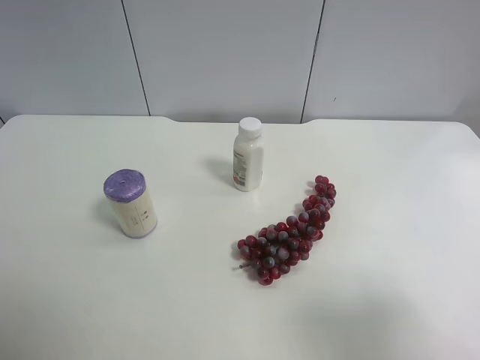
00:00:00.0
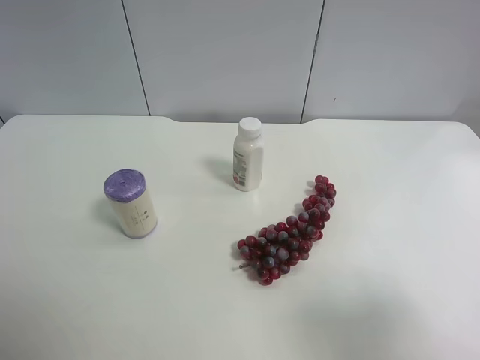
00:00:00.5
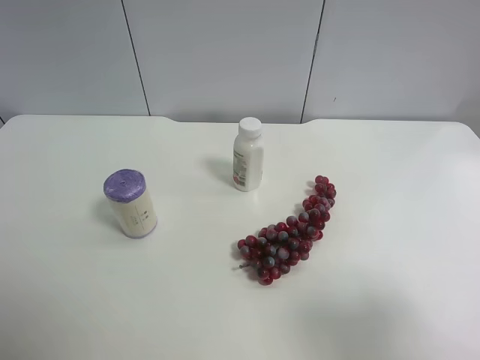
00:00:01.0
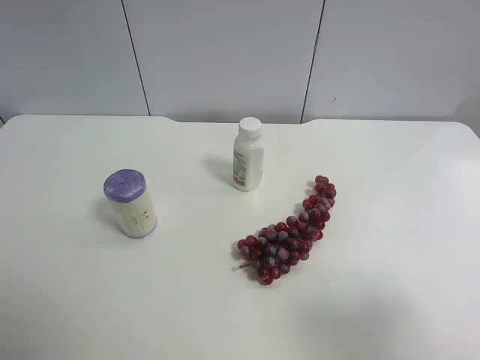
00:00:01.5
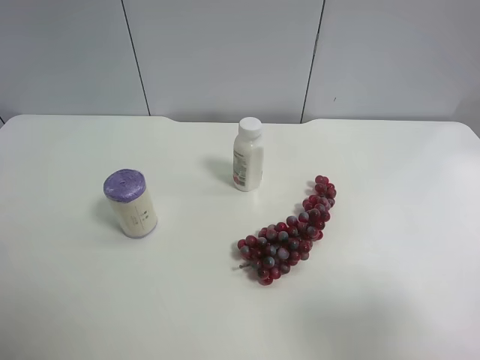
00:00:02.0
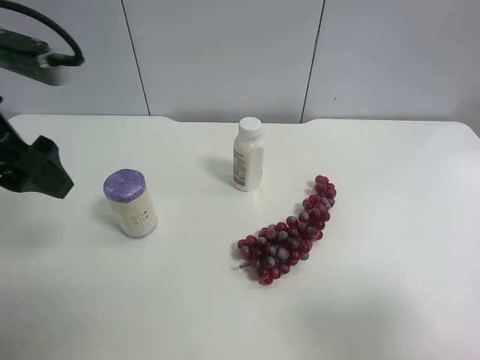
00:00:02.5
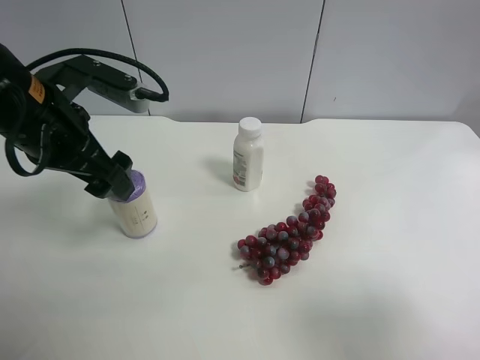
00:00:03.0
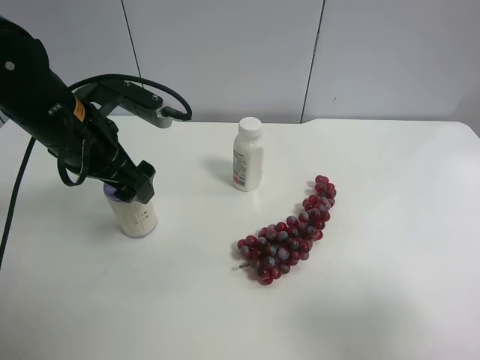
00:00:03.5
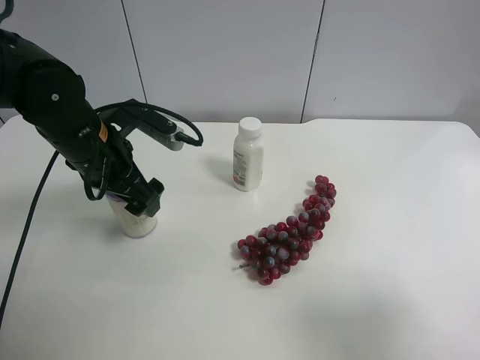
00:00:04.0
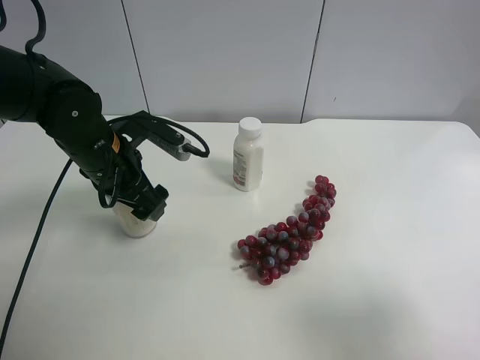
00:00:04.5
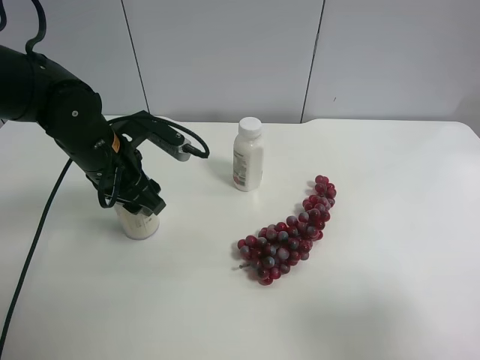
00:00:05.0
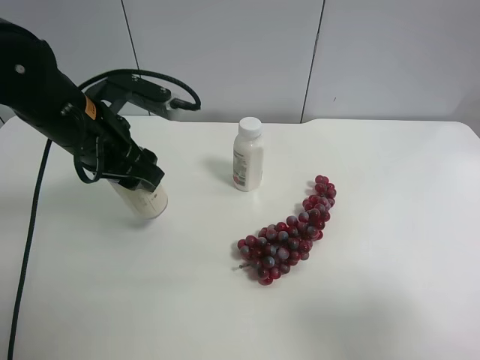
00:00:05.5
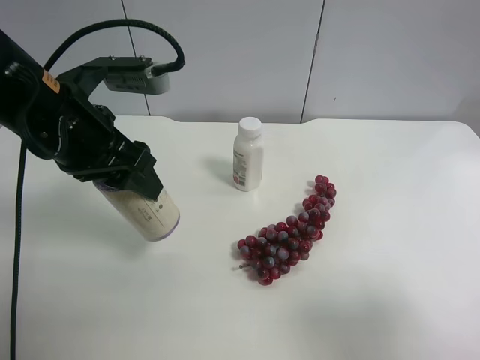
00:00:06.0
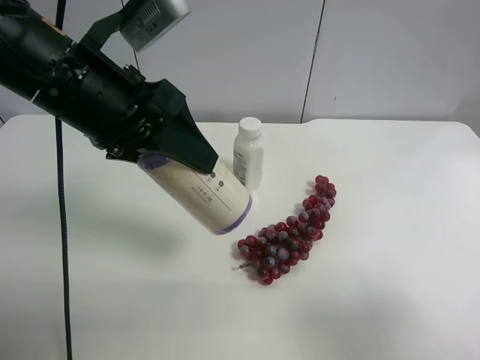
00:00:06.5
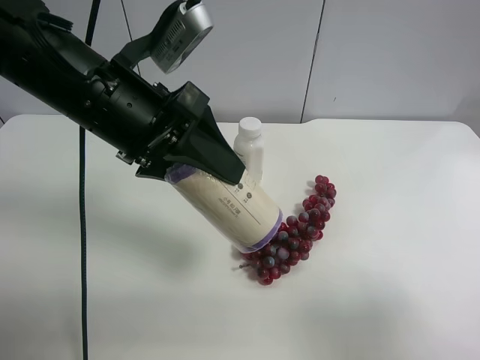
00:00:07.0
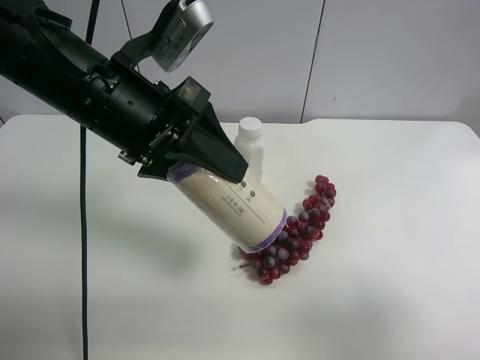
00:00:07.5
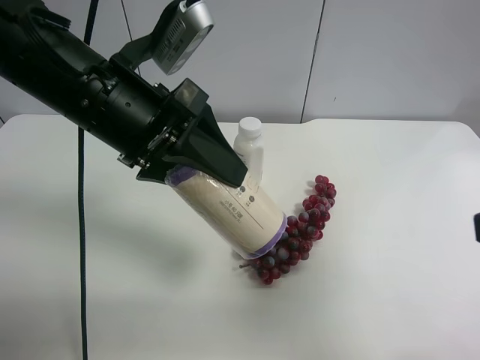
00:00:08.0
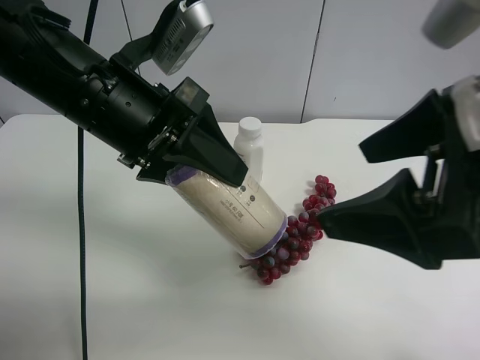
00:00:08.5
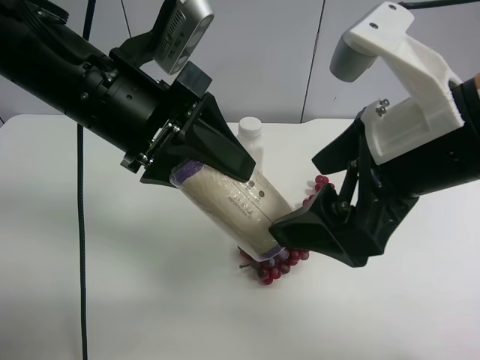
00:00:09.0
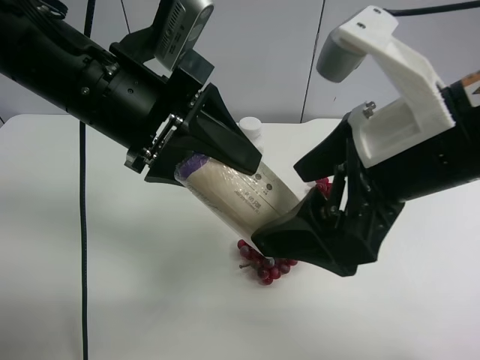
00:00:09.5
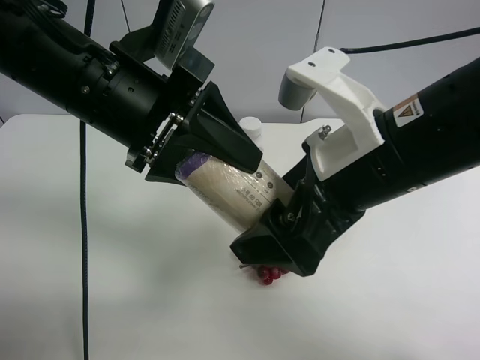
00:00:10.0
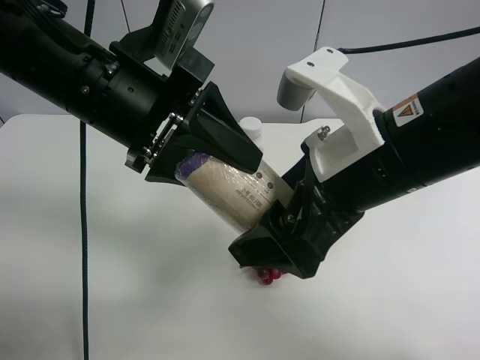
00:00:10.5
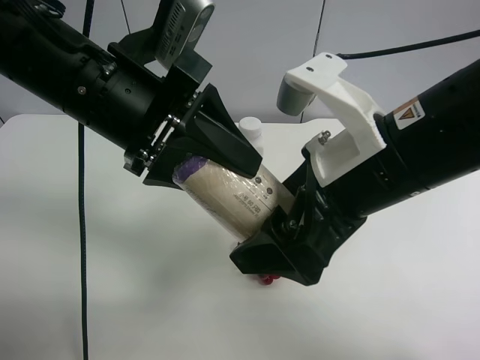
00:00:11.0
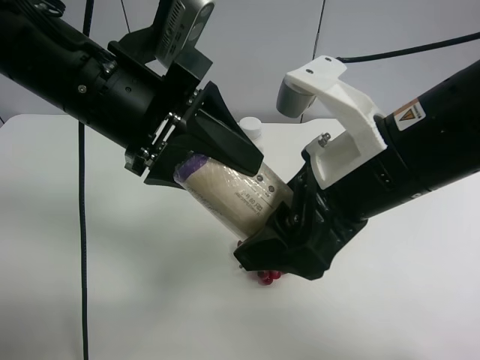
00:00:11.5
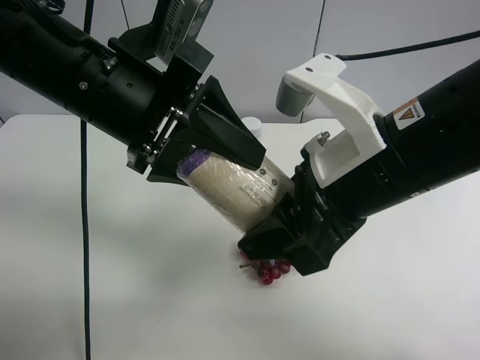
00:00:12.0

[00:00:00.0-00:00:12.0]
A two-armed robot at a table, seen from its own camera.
Task of the whole recording: use the left gripper to pick up the item and transfer it from the left gripper to the right gripper.
00:00:02.0 to 00:00:04.0: The left gripper goes roughly 25 cm forward, downward and to the right.
00:00:04.0 to 00:00:06.0: The left gripper travels upward by roughly 10 cm, and closes up.
00:00:06.0 to 00:00:08.0: The right gripper heads forward, covering approximately 5 cm.
00:00:08.0 to 00:00:10.0: The right gripper goes some 20 cm to the left and forward.
00:00:10.0 to 00:00:12.0: The right gripper closes its fingers.

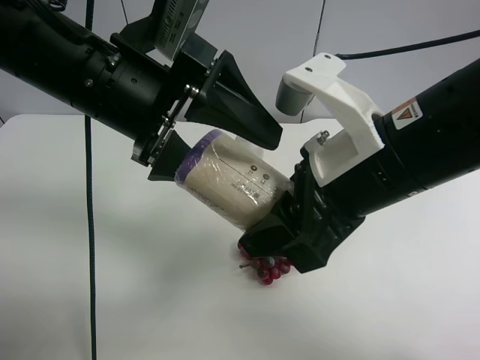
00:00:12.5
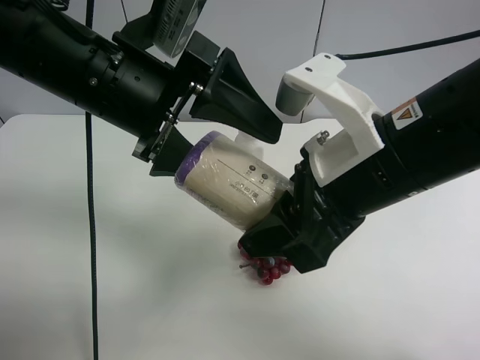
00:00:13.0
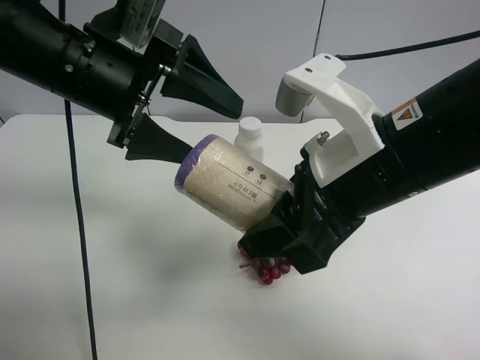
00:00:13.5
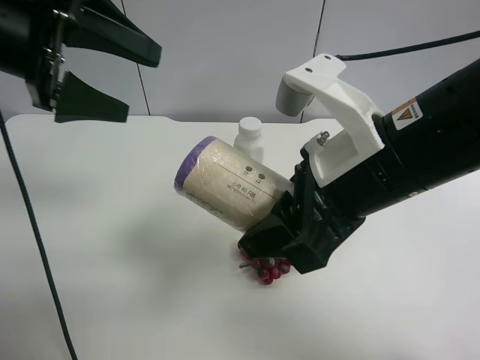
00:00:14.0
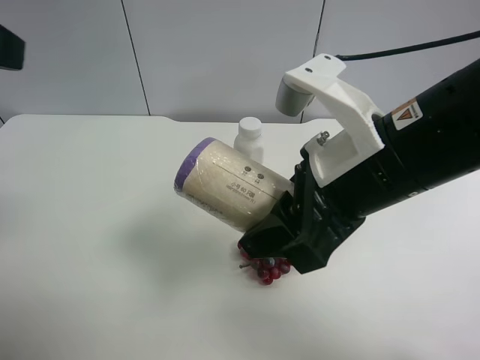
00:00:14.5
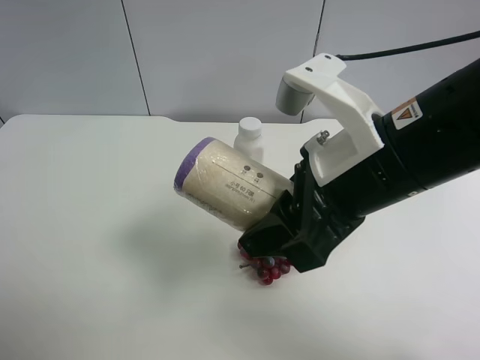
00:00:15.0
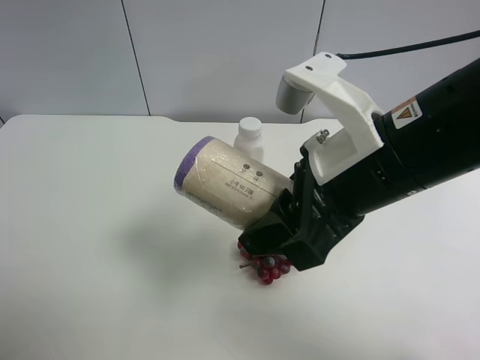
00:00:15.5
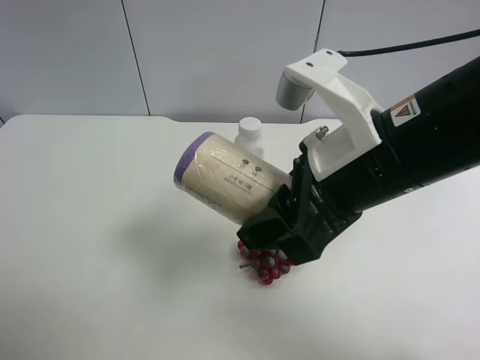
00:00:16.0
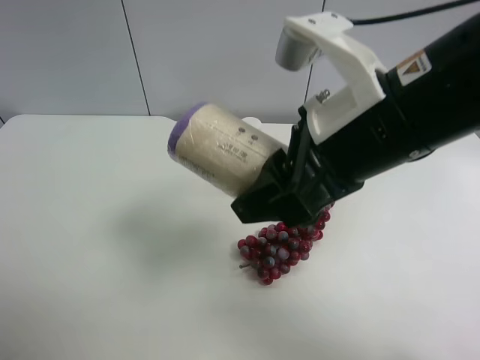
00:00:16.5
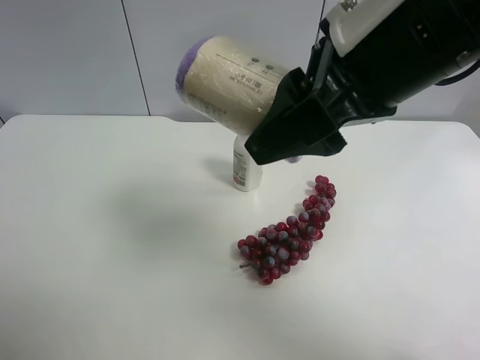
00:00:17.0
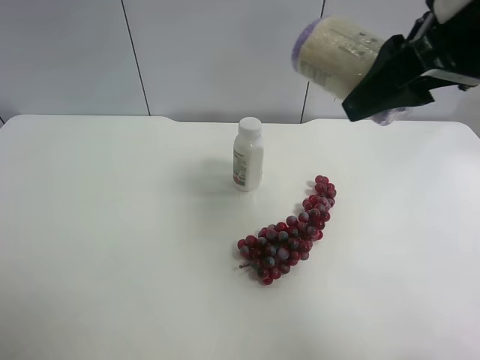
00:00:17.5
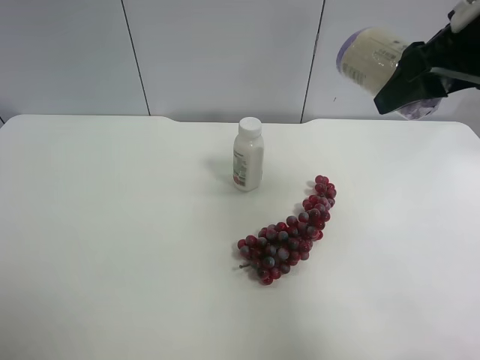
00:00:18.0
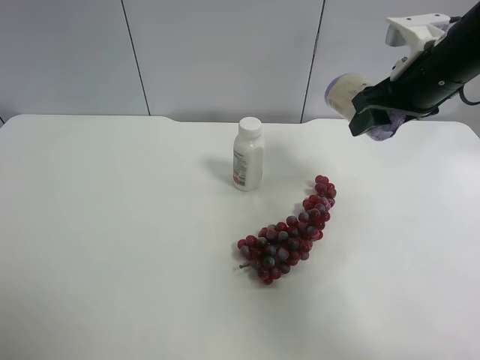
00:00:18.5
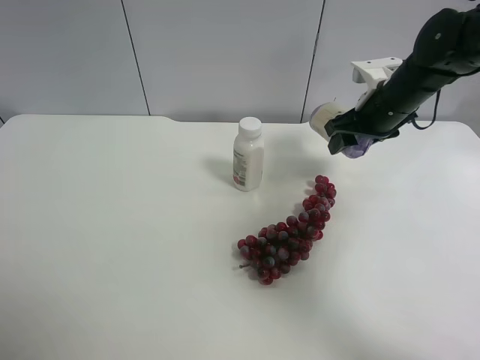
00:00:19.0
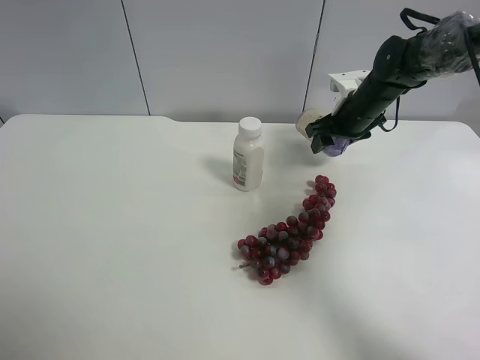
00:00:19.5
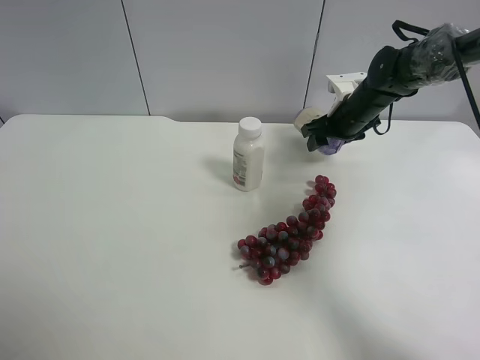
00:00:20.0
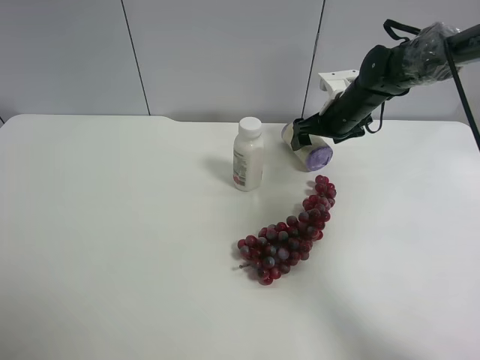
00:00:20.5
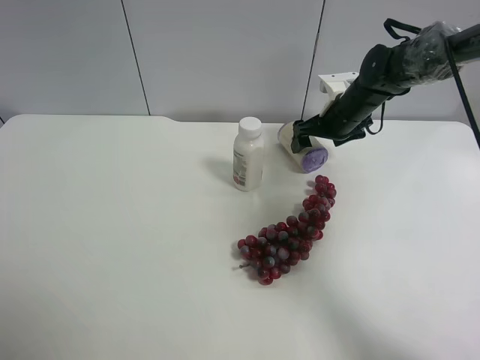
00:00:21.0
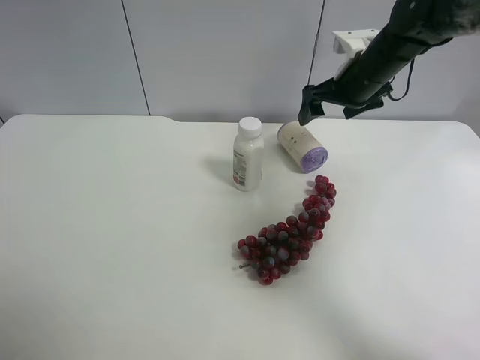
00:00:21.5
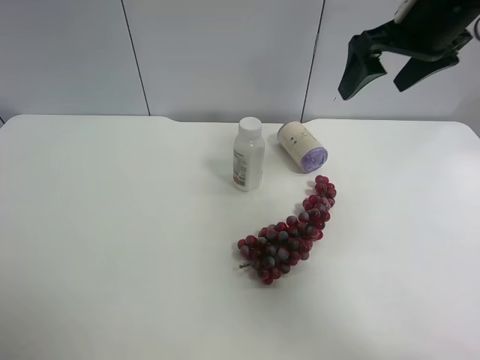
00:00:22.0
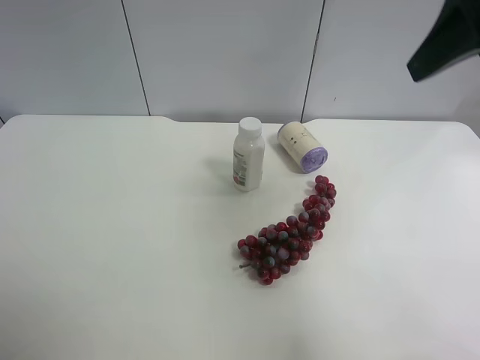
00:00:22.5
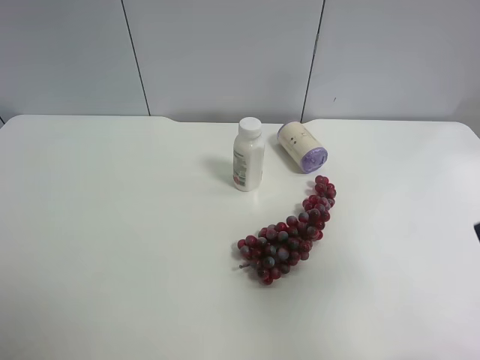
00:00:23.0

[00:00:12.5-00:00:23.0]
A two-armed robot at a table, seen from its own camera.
Task of the whole recording: use the left gripper to pick up the item and transfer it from the left gripper to the right gripper.
00:00:12.5 to 00:00:14.5: The left gripper moves to the left, upward and backward, roughly 20 cm.
00:00:14.5 to 00:00:16.5: The left gripper travels backward and downward by some 20 cm.
00:00:16.5 to 00:00:19.0: The right gripper shifts about 30 cm forward, to the right and downward.
00:00:19.0 to 00:00:21.0: The right gripper shifts about 5 cm forward, and opens up.
00:00:21.0 to 00:00:23.0: The right gripper is displaced backward and upward by roughly 40 cm.

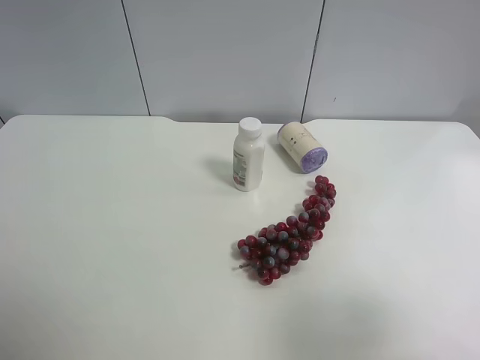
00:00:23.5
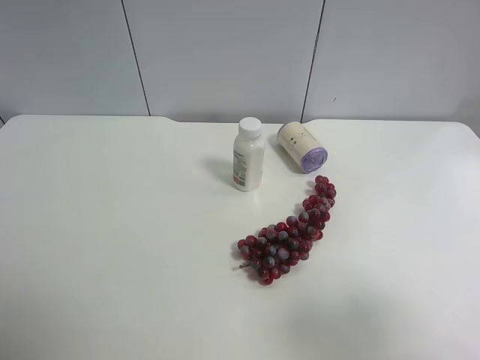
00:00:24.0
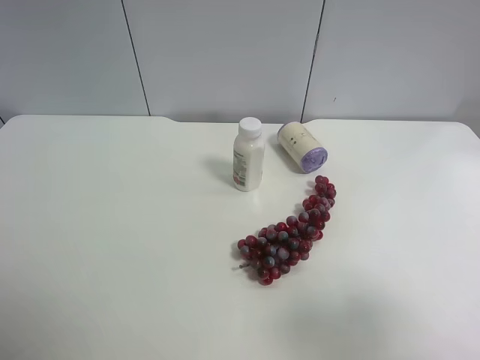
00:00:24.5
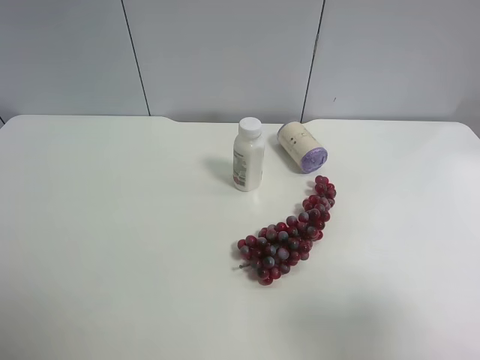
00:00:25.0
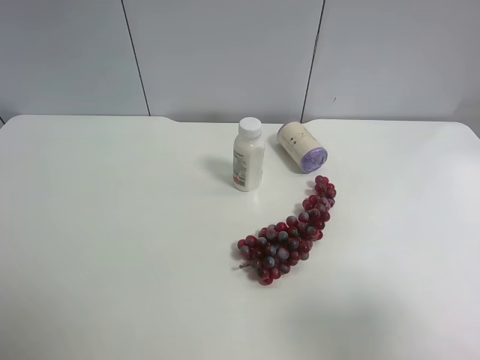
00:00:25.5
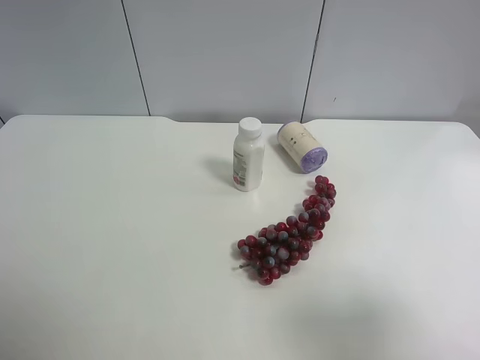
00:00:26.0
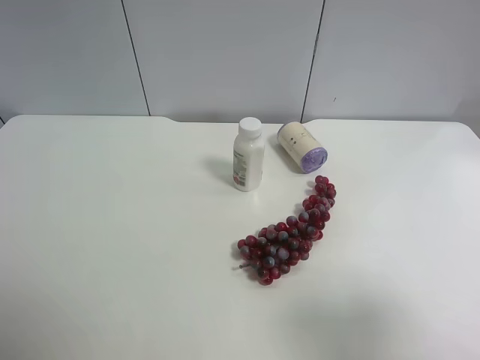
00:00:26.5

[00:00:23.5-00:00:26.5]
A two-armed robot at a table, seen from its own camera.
Task of the whole recording: use the left gripper to pick up the item and transfer it from the left gripper to the right gripper.
00:00:25.0 to 00:00:26.5: Both grippers stay put.
